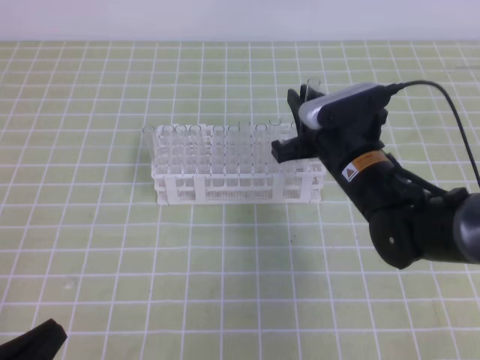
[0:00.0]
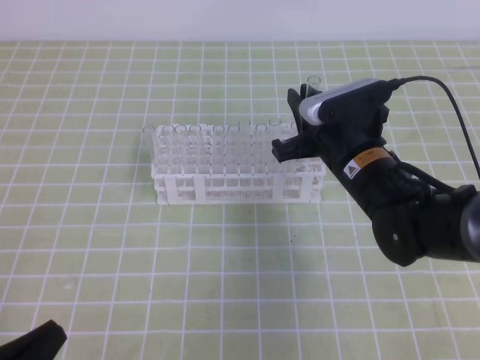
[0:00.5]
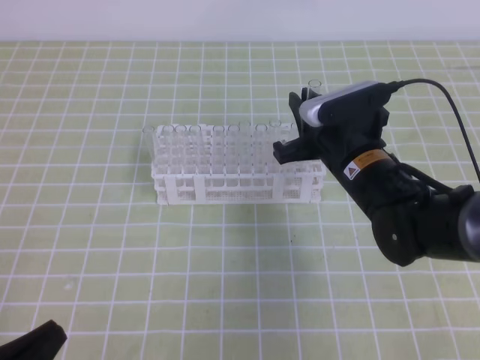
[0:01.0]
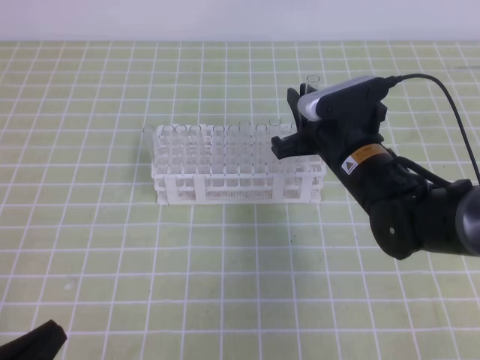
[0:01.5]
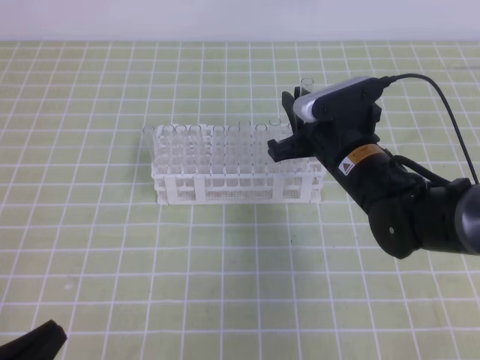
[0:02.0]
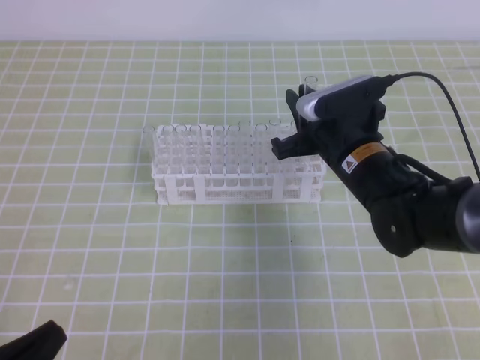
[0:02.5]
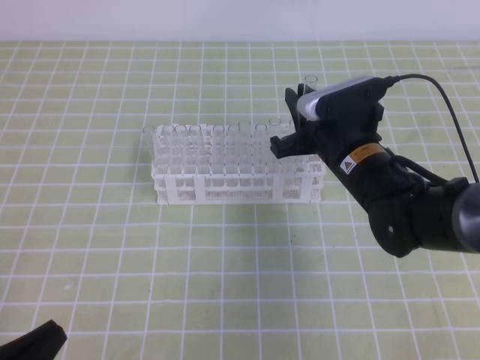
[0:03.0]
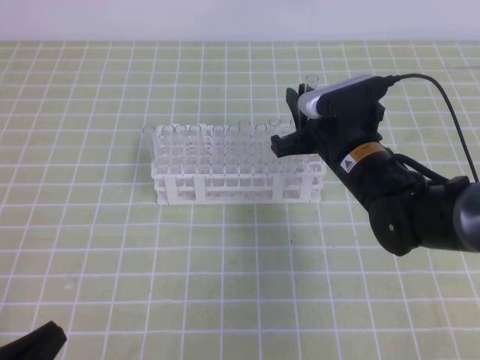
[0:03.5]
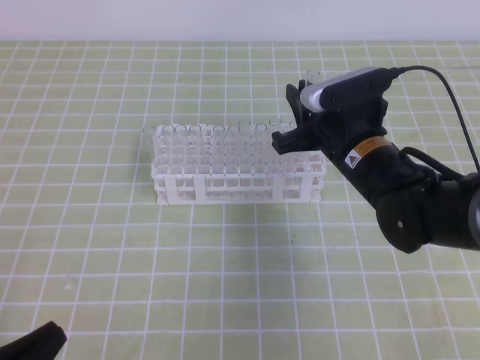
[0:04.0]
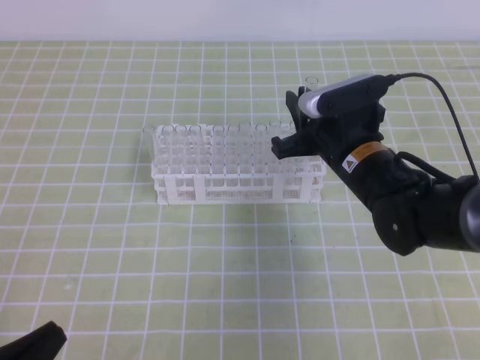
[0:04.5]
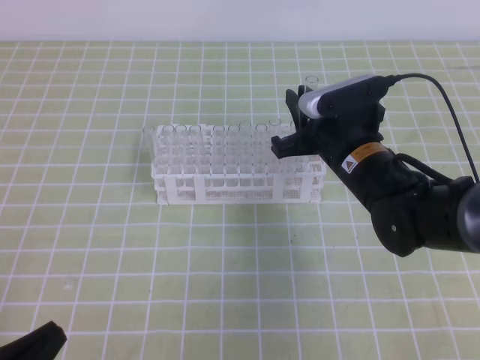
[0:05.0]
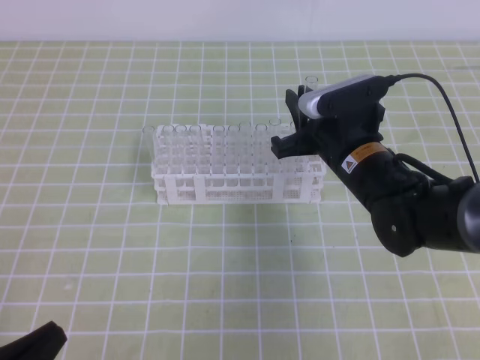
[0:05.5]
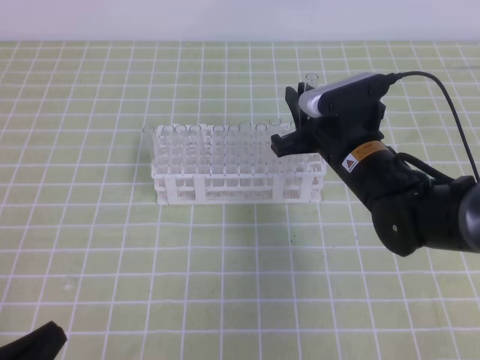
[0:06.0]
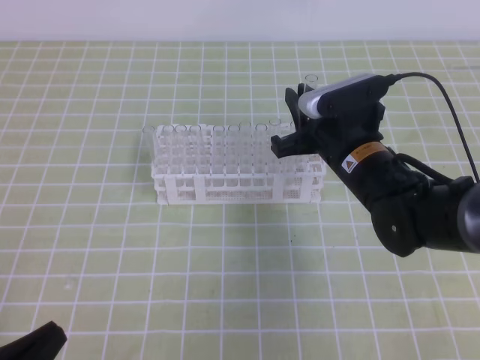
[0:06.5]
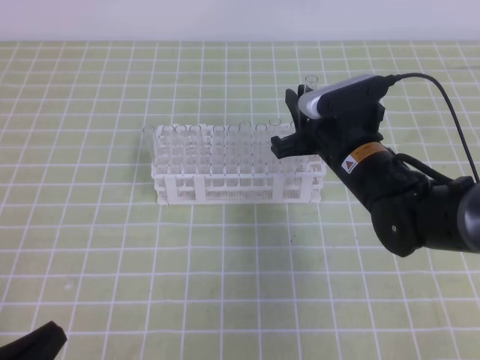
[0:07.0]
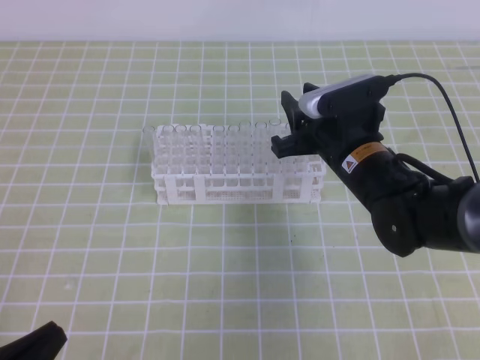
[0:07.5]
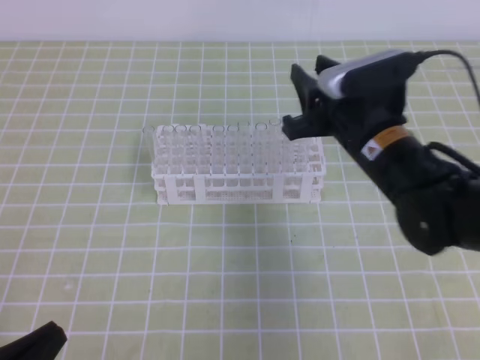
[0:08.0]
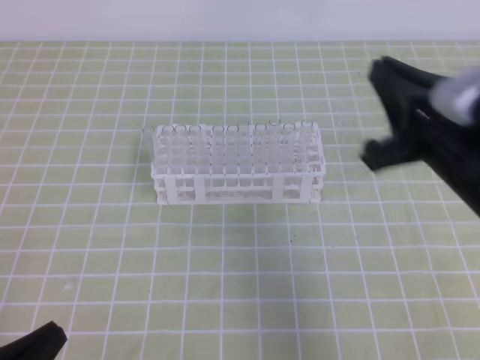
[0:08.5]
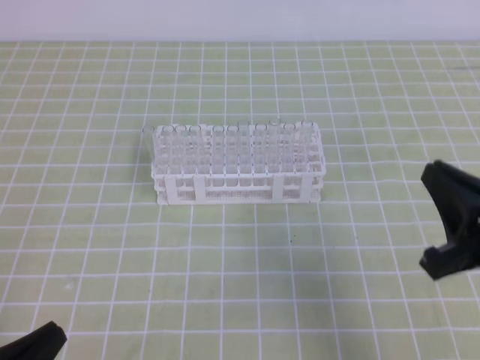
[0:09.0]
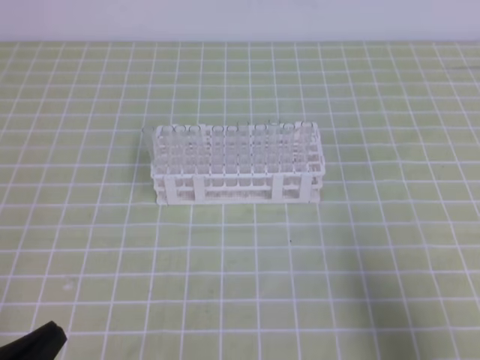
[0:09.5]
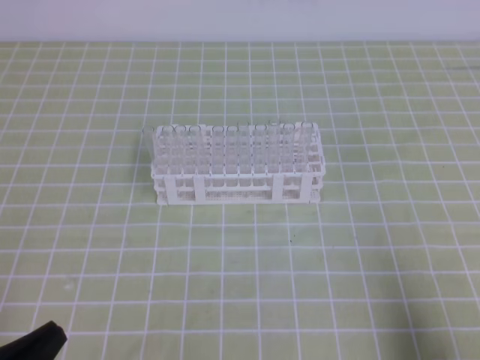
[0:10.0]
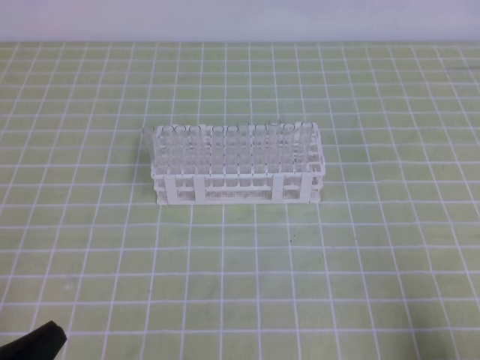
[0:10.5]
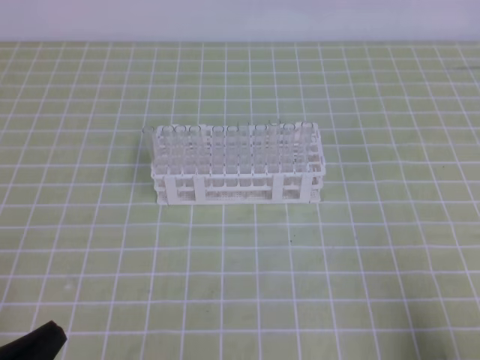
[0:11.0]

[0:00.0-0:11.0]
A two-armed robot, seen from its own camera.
0:00.0 to 0:02.0: Both grippers stay about where they are.
0:02.0 to 0:03.5: The two grippers keep their place.
0:03.5 to 0:05.5: The grippers move only a little.
0:05.5 to 0:07.5: Both grippers stay put.
0:07.5 to 0:09.0: The right gripper travels backward and to the right by about 20 cm, and closes up.
0:09.0 to 0:11.0: The right gripper moves backward, to the right and downward, some 15 cm.
